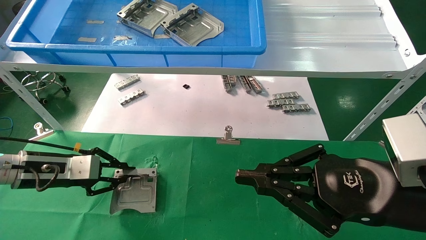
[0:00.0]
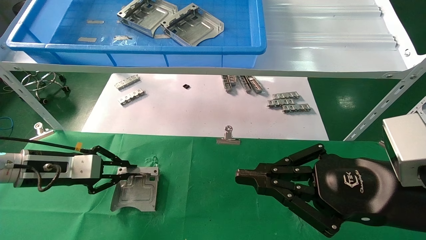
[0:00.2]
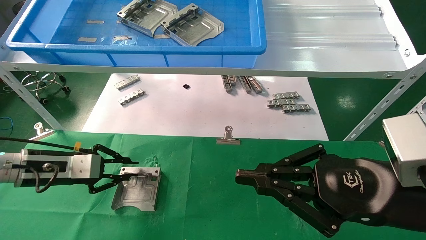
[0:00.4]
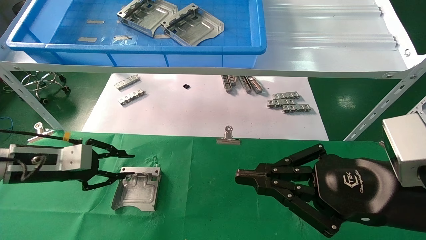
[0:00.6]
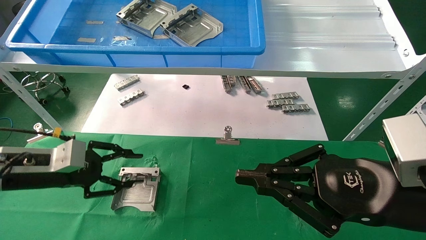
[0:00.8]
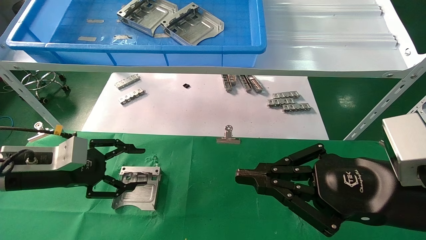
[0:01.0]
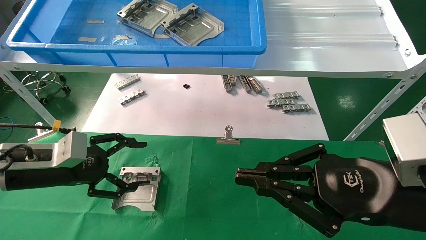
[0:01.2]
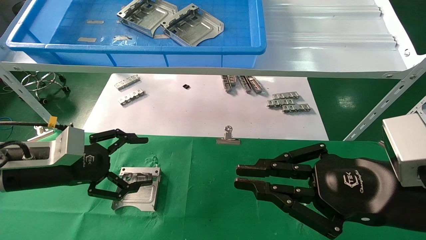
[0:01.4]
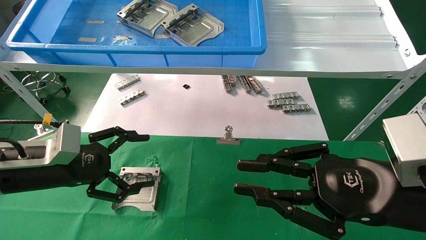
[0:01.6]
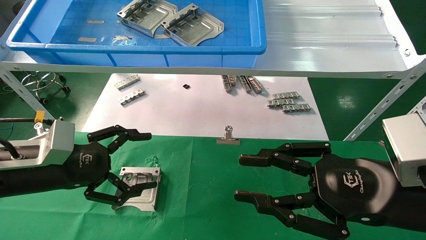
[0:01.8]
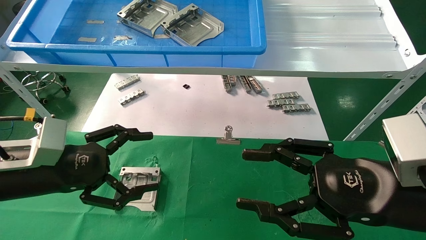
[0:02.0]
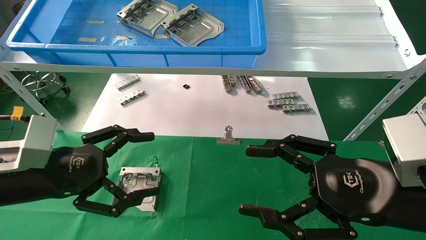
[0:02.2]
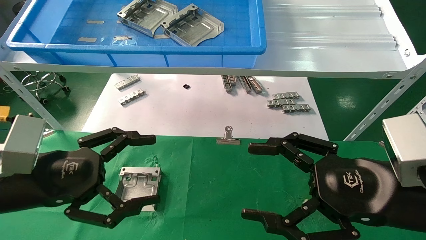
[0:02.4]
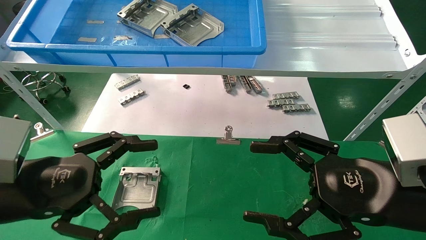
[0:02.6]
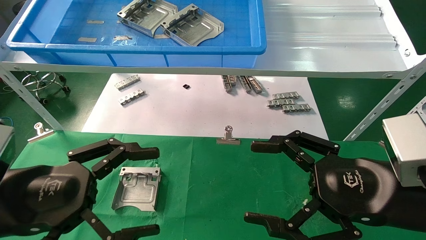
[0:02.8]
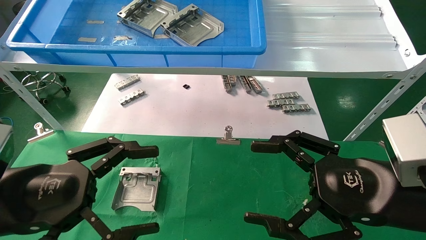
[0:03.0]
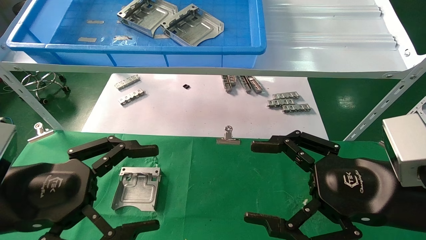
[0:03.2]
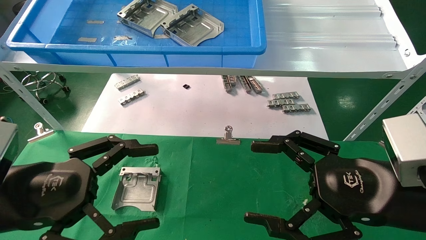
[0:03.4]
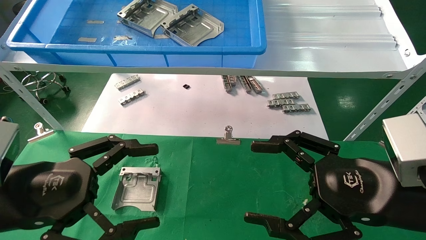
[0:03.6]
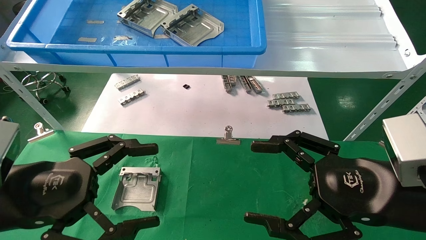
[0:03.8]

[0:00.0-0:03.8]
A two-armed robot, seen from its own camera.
Task of the whole recording: use the mechanical arm to pick up the parts and place them on the table.
0:00.0 to 0:01.2: The left gripper ends up approximately 5 cm from where it was, and opens.
0:01.2 to 0:02.6: The right gripper opens up. The left gripper shifts some 10 cm backward.
0:02.6 to 0:03.8: The grippers make only small movements.

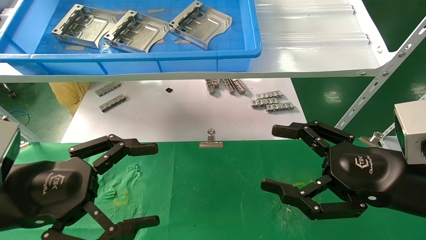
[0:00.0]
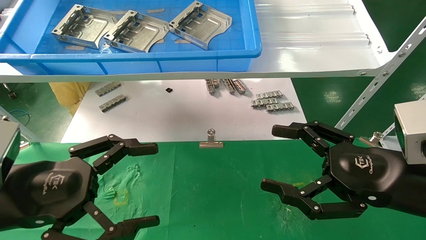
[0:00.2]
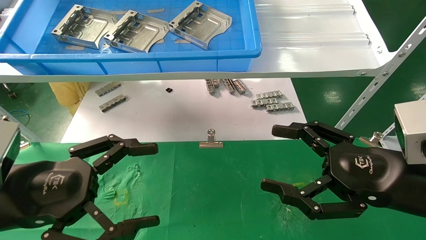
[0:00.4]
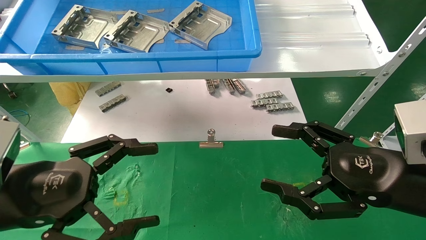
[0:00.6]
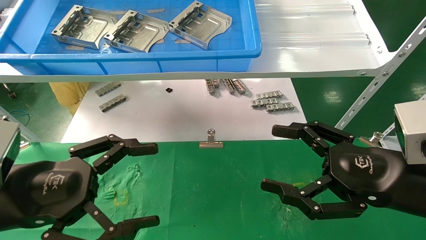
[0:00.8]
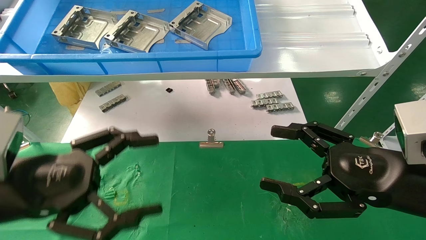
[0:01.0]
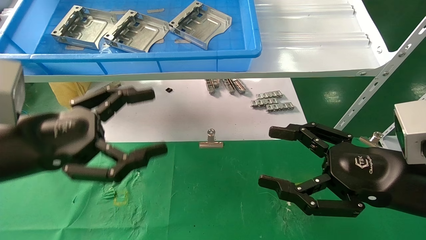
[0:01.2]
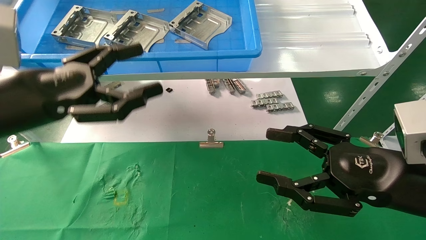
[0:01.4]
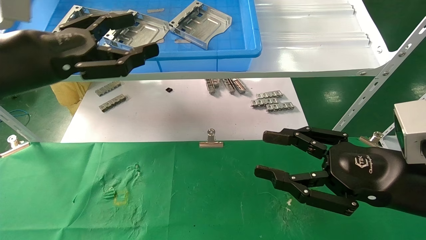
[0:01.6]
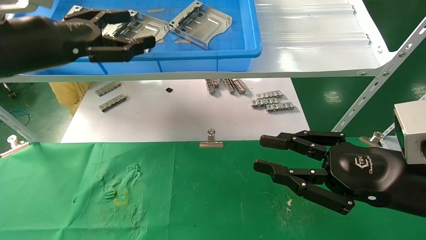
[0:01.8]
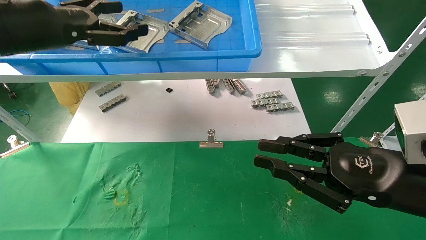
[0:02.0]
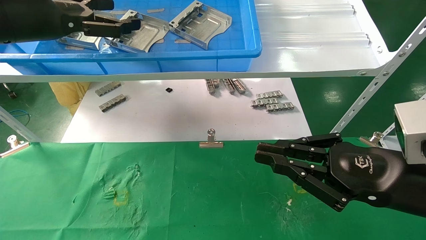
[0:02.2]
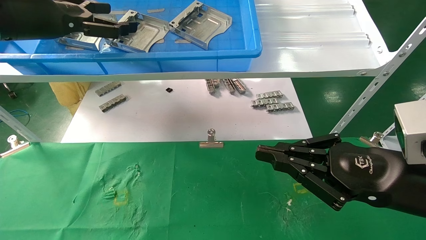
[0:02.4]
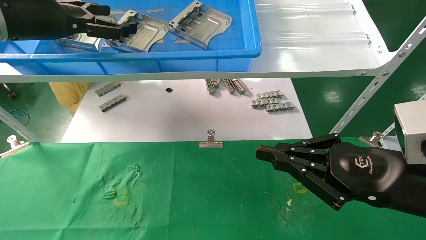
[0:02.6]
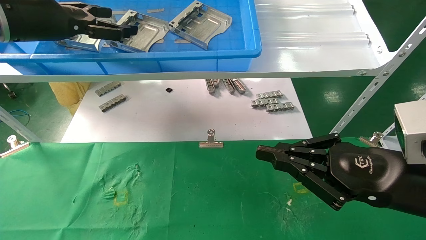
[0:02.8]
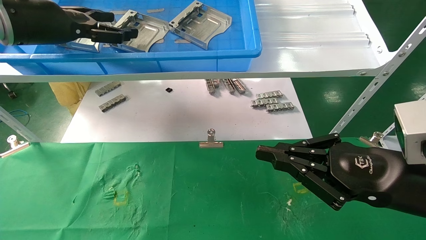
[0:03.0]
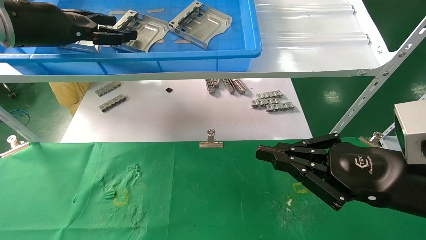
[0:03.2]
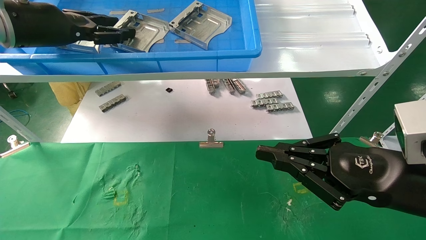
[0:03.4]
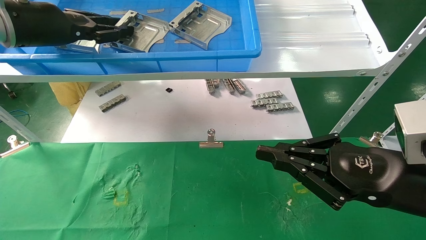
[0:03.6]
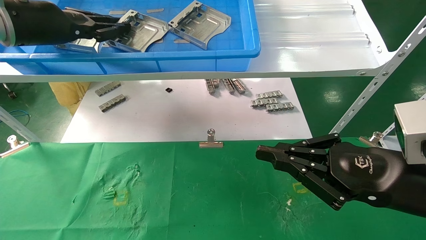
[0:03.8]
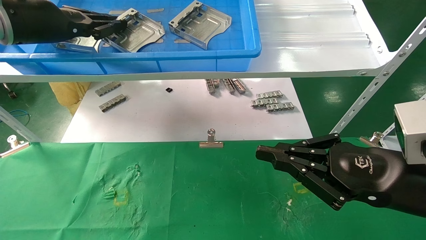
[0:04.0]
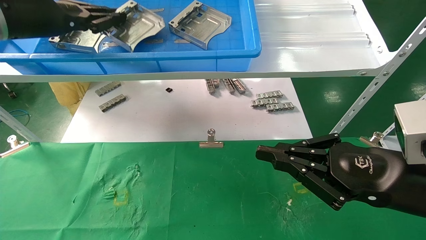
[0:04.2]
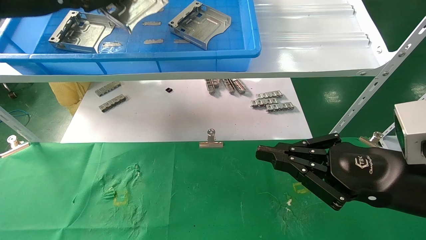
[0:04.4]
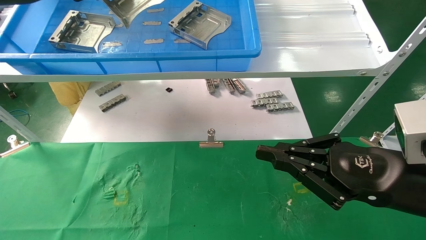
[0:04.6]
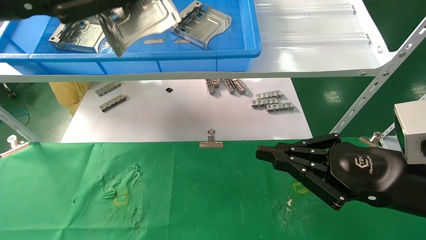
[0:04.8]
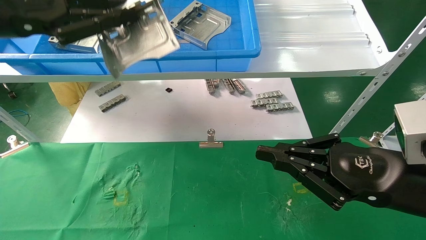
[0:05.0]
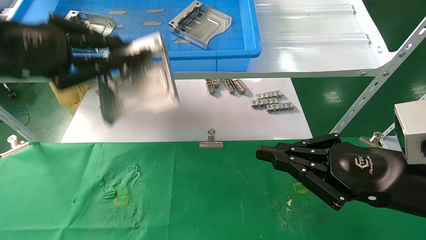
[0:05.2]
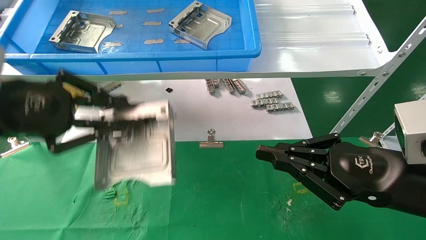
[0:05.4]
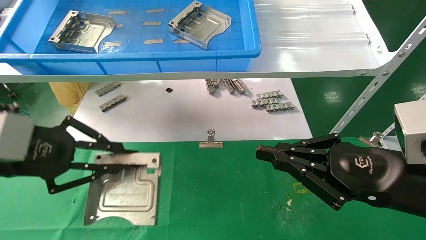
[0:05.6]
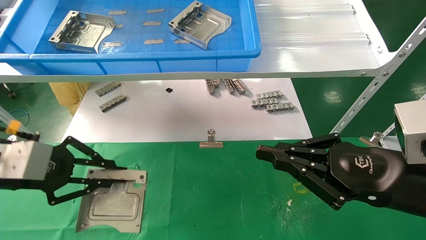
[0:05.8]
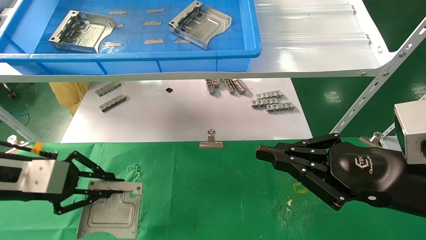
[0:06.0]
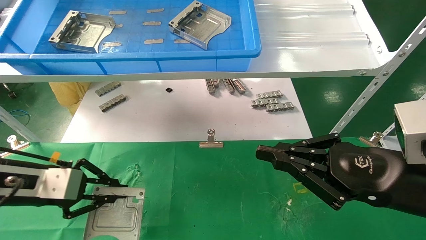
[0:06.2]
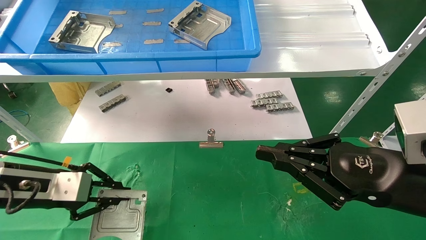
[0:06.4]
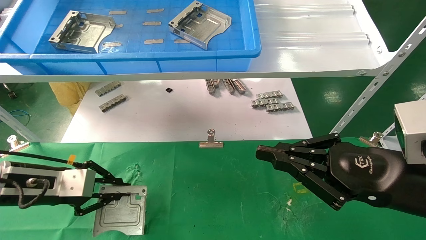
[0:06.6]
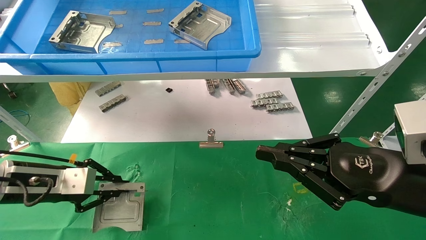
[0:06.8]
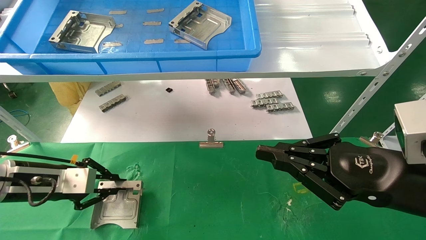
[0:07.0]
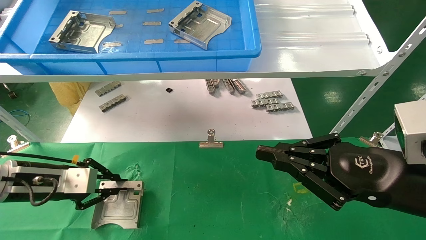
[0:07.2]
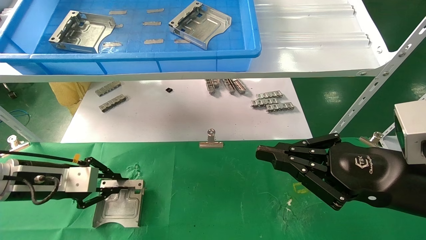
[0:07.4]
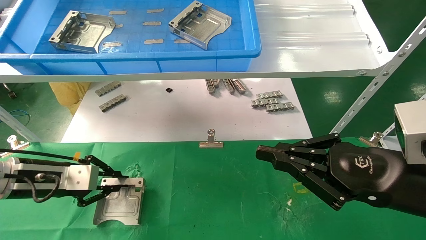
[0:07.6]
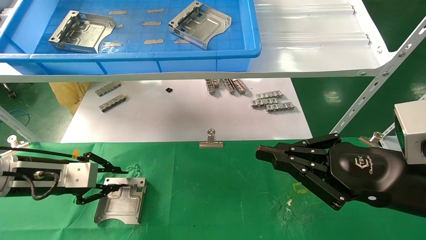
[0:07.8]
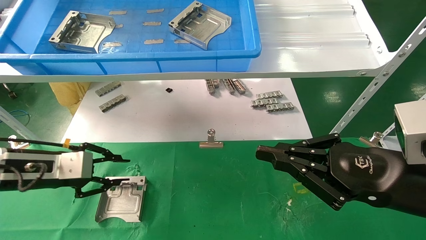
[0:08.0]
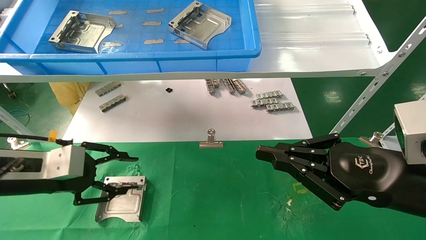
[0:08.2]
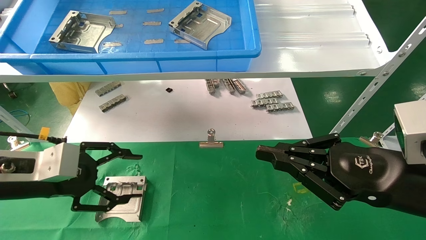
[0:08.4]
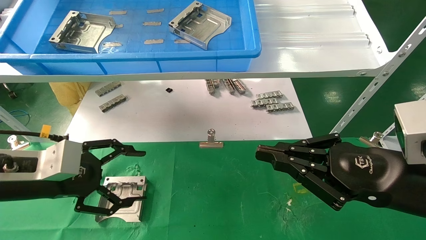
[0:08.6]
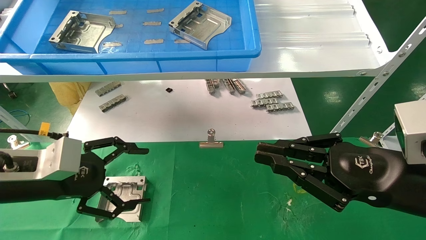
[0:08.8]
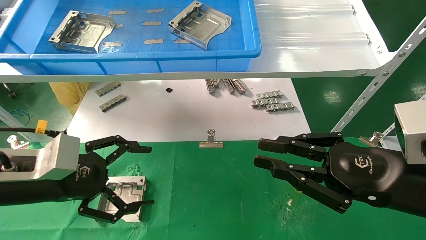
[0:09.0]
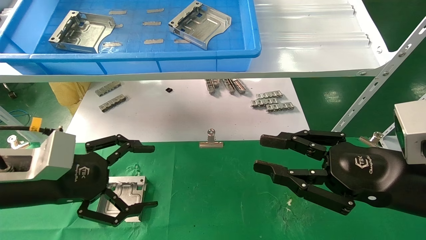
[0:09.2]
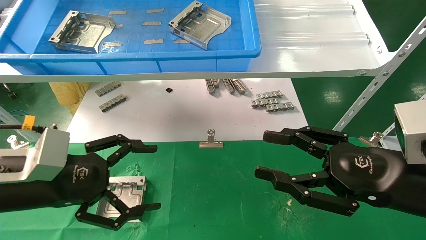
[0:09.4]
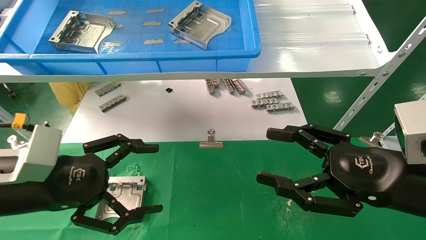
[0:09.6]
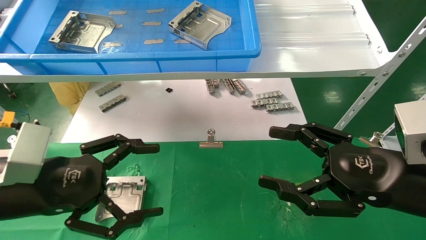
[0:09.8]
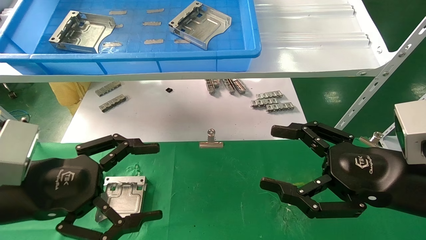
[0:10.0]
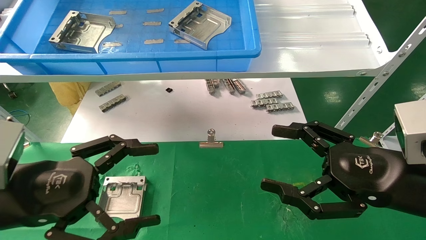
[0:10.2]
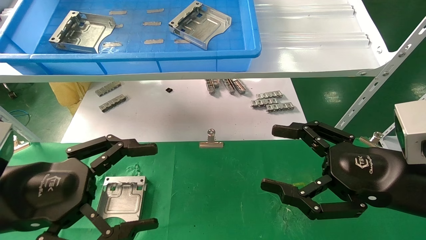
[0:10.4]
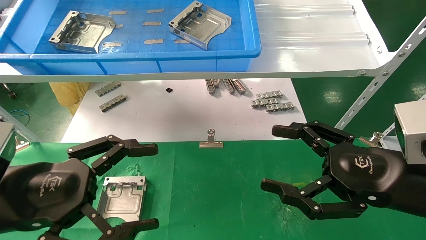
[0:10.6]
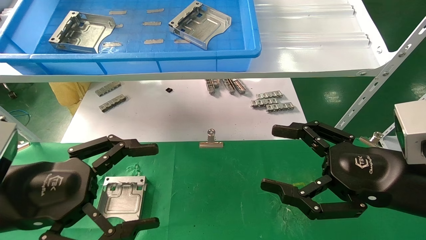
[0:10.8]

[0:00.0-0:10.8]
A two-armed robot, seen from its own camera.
Task of the whole recording: use the mechanical arm to pick up the parts and place them on the table.
Step, 0:01.2 to 0:03.8: Pick up the hard drive bracket from the feeding area.
Step, 0:04.0 to 0:07.8: Place the hard drive bracket into the box.
0:00.0 to 0:01.6: The left gripper travels upward and forward by approximately 15 cm, while the right gripper closes its fingers.
0:01.6 to 0:03.0: The left gripper travels forward and upward by approximately 15 cm, while the right gripper closes up.
0:03.0 to 0:04.6: The left gripper travels backward by approximately 5 cm, and closes up.
0:04.6 to 0:06.2: The left gripper shifts about 25 cm downward.
0:06.2 to 0:07.8: There are only small adjustments of the grippers.
0:07.8 to 0:09.2: The left gripper shifts approximately 10 cm backward and to the right, and opens its fingers.
0:09.2 to 0:10.8: The left gripper moves backward, some 5 cm; the right gripper opens up.
